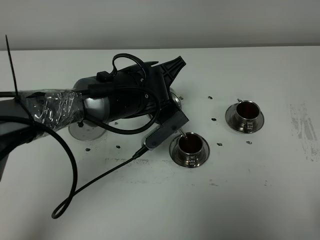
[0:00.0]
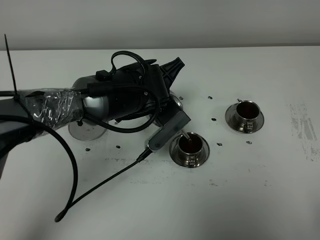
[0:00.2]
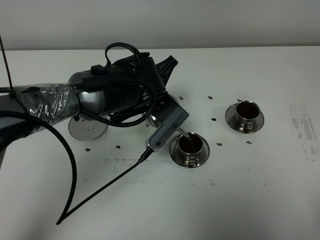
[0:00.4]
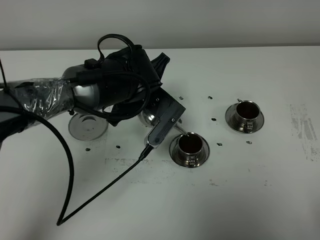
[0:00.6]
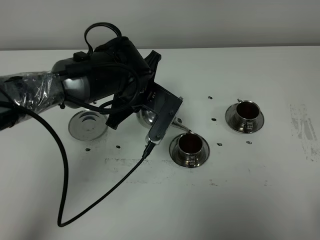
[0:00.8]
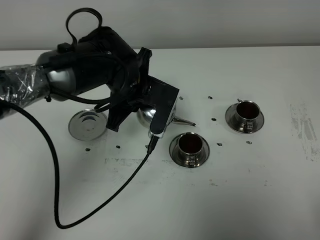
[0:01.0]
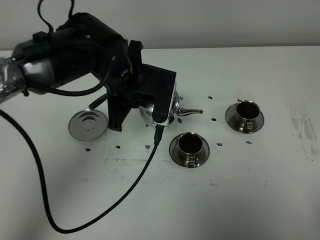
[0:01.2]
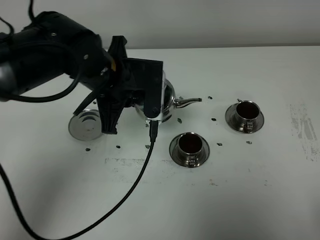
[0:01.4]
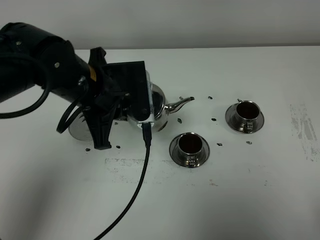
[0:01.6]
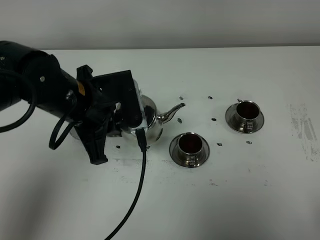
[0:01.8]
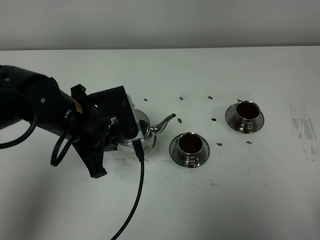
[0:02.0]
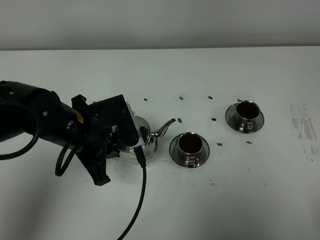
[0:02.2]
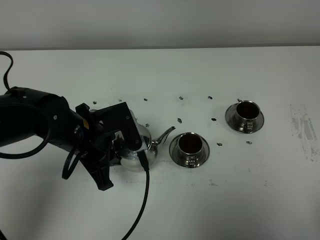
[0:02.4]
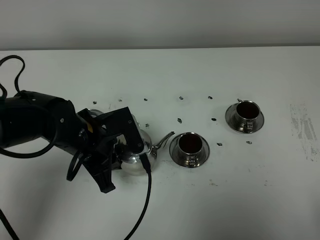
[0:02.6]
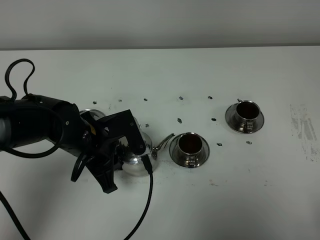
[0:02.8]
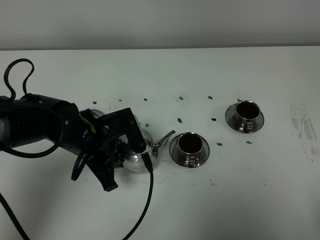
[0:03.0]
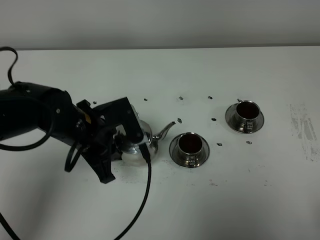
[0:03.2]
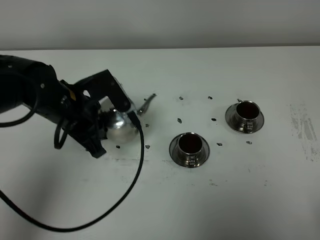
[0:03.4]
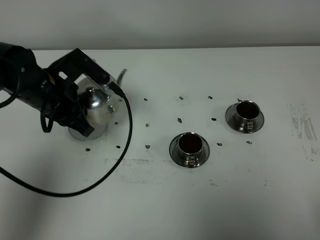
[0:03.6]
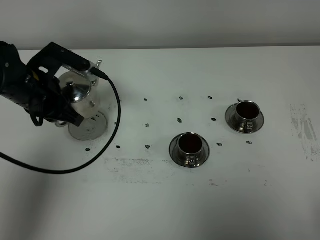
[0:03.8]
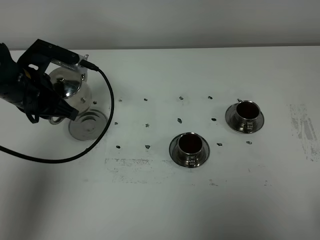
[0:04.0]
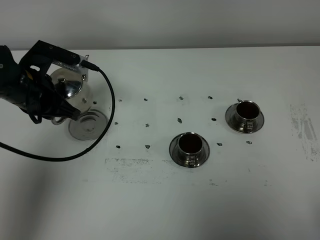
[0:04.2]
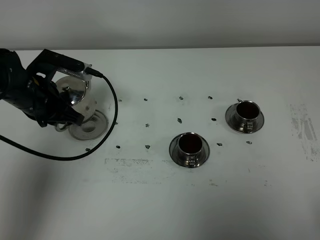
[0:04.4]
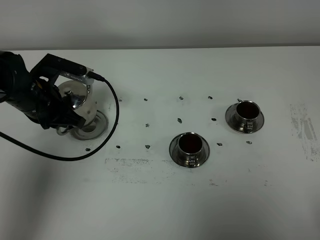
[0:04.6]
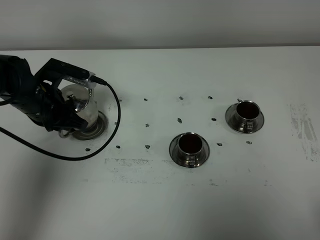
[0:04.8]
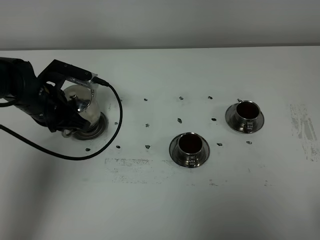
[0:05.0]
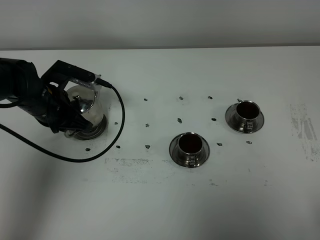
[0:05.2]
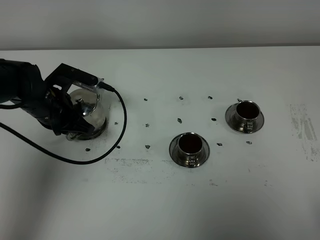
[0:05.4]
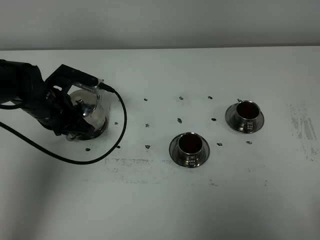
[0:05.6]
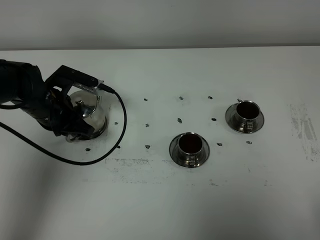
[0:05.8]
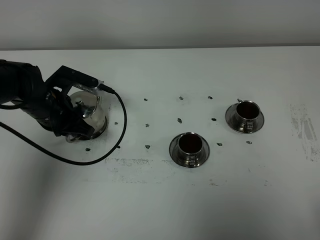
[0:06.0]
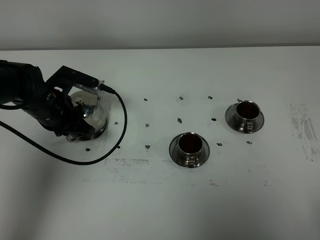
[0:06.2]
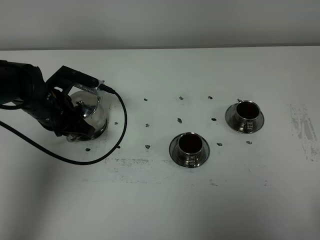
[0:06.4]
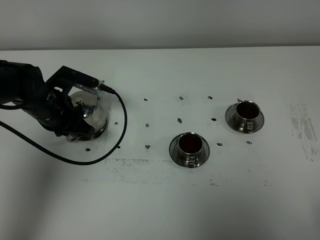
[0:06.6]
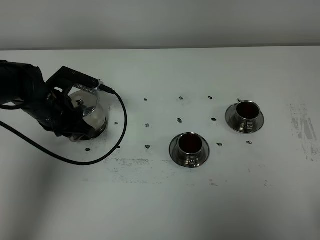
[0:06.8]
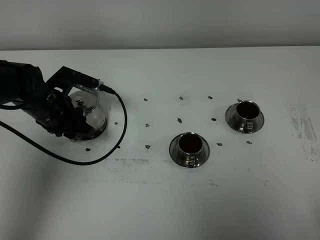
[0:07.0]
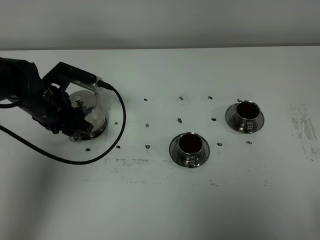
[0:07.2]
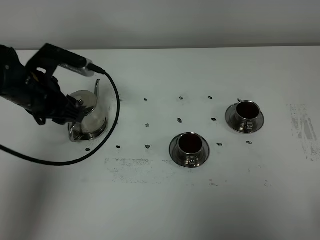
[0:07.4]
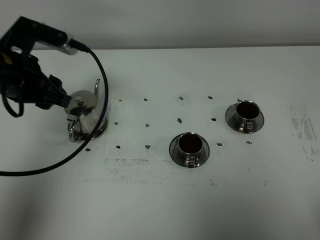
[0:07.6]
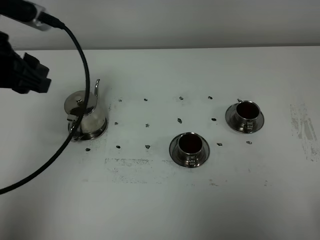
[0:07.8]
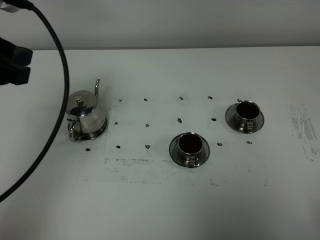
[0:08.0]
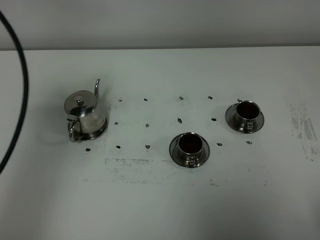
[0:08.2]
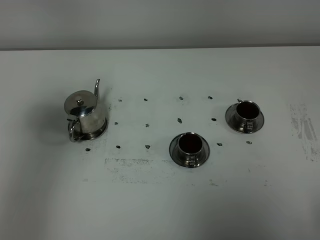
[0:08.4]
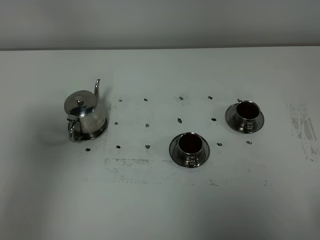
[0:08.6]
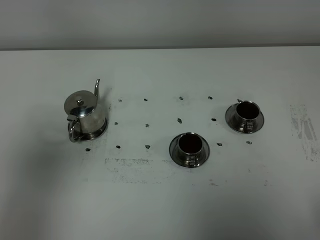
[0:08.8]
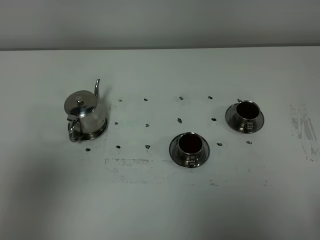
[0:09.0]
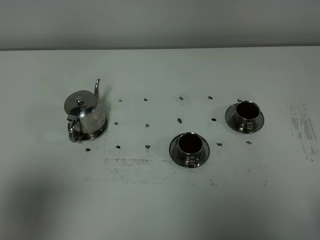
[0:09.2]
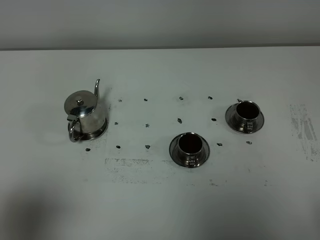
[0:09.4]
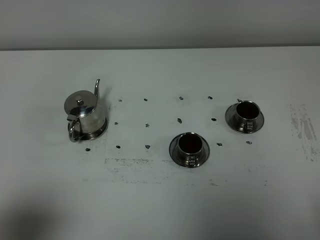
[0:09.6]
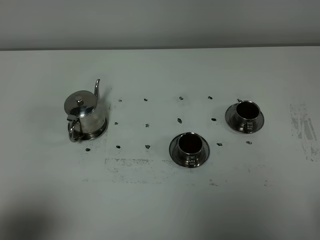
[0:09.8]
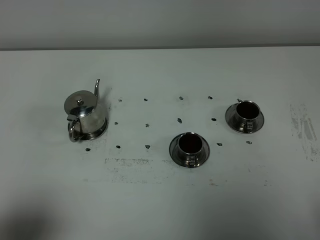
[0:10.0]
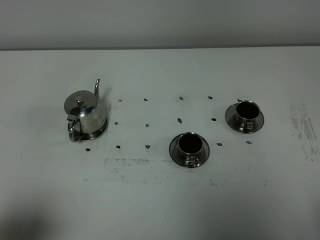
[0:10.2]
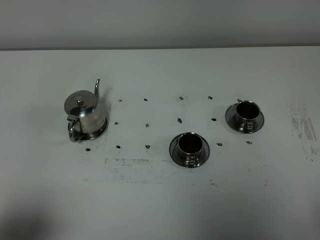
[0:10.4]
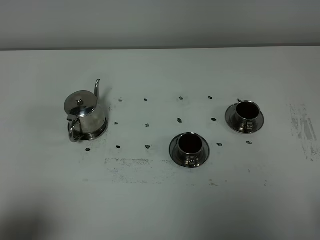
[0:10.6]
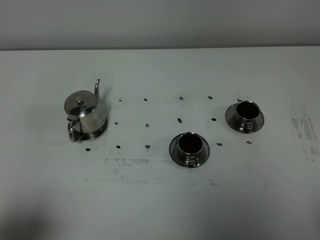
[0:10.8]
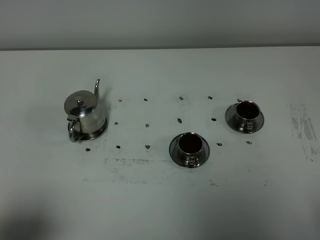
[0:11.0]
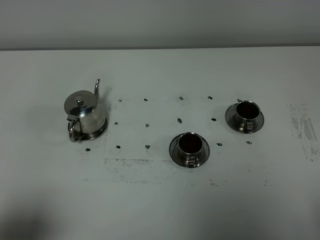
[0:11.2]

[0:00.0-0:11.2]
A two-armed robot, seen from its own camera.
Task of the whole recording: grasp the stainless steel teapot and pour the tea into the two stainless steel teacups one by one, put the stainless steel teapot back in its original place.
0:00.0 to 0:01.6: The left gripper travels to the left and upward by about 10 cm.
0:01.6 to 0:03.2: The left gripper heads downward, covering roughly 10 cm.
0:03.2 to 0:04.8: The left gripper goes about 10 cm to the left and forward.
0:04.8 to 0:06.4: The grippers make only small movements.
0:06.4 to 0:08.0: The left gripper is displaced upward and backward by some 25 cm, and opens up.
0:08.0 to 0:09.6: The left gripper moves backward, approximately 25 cm.
